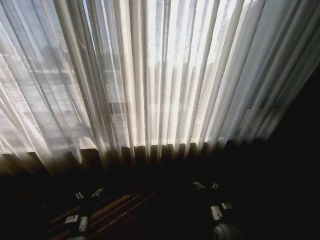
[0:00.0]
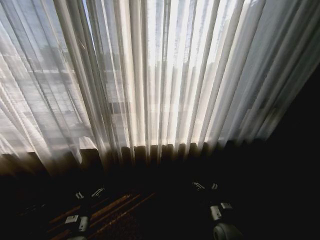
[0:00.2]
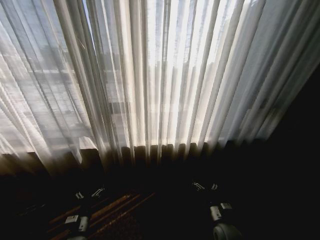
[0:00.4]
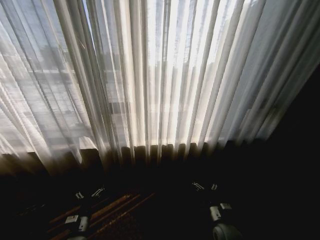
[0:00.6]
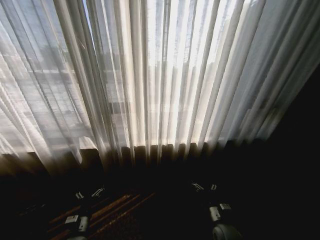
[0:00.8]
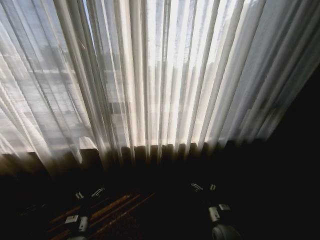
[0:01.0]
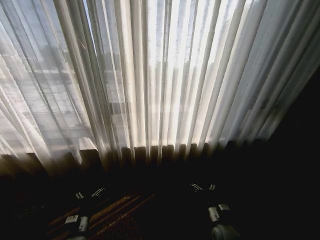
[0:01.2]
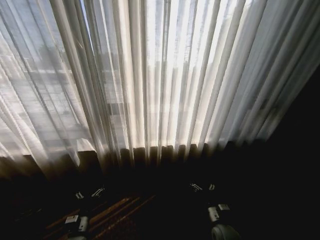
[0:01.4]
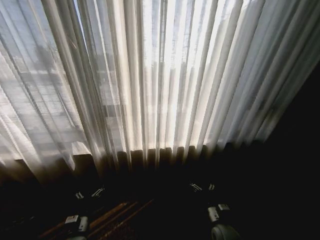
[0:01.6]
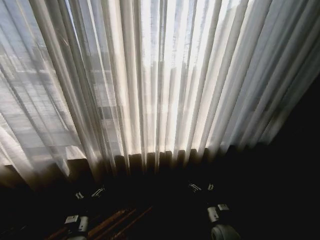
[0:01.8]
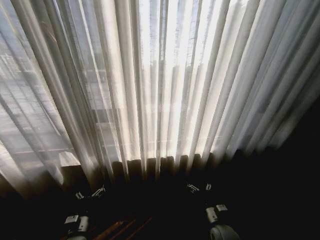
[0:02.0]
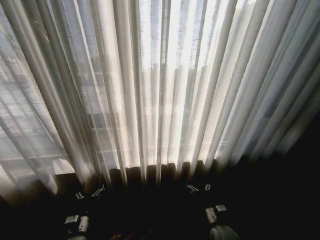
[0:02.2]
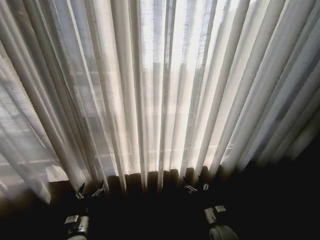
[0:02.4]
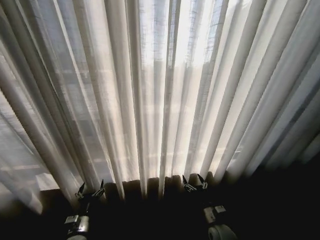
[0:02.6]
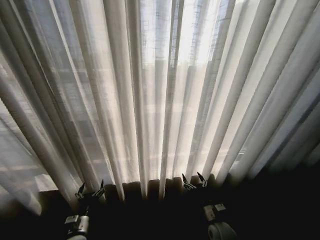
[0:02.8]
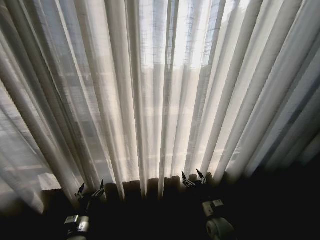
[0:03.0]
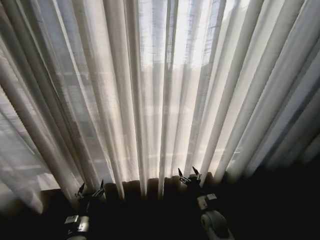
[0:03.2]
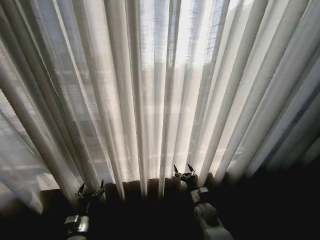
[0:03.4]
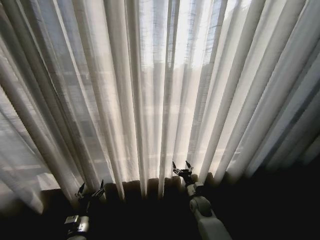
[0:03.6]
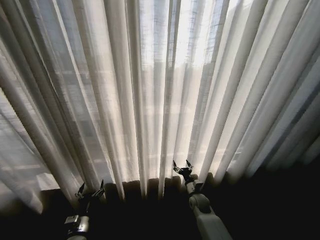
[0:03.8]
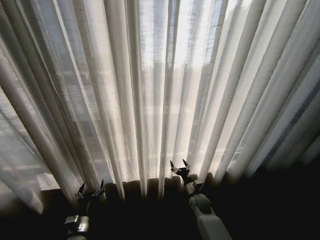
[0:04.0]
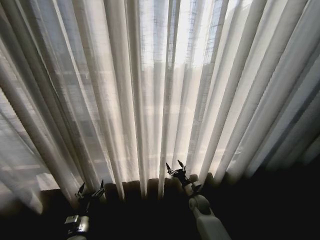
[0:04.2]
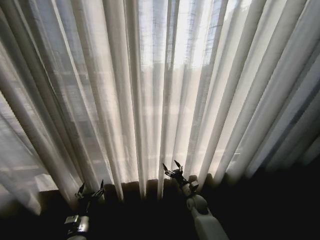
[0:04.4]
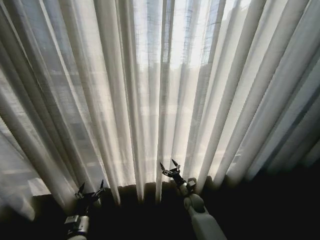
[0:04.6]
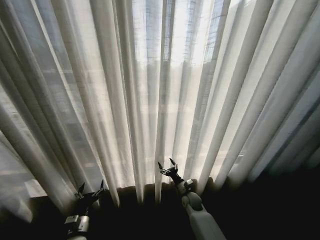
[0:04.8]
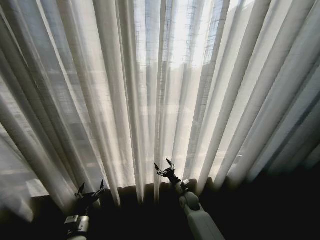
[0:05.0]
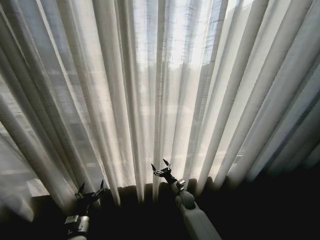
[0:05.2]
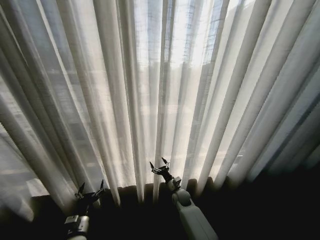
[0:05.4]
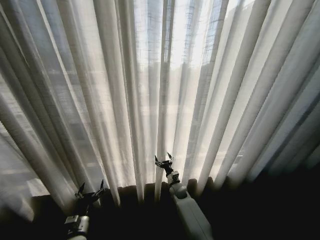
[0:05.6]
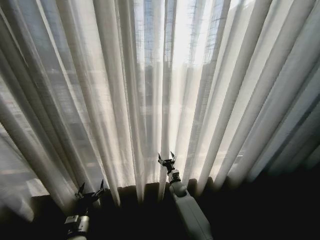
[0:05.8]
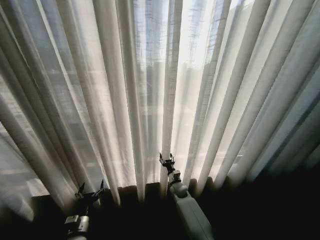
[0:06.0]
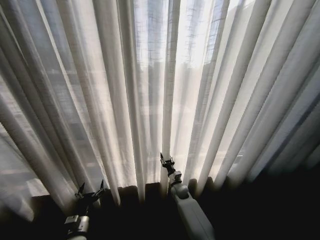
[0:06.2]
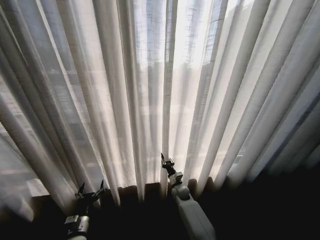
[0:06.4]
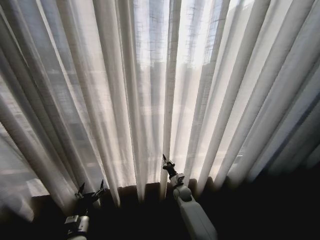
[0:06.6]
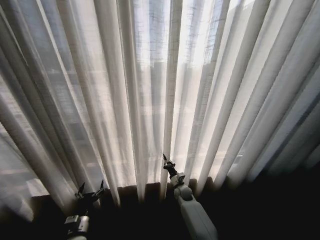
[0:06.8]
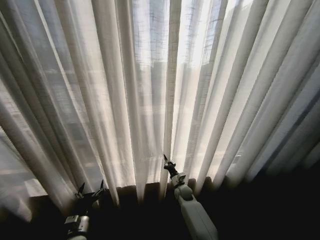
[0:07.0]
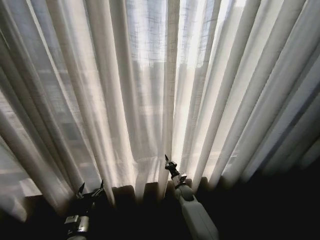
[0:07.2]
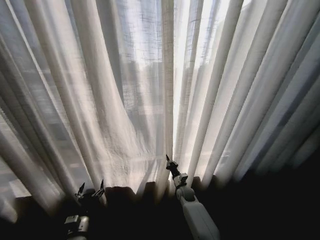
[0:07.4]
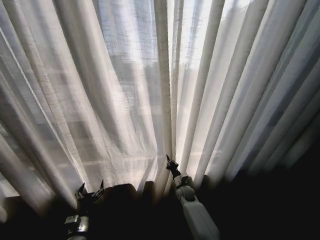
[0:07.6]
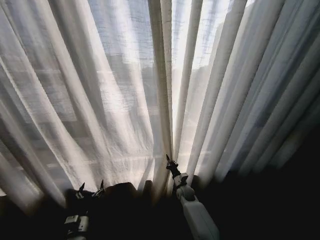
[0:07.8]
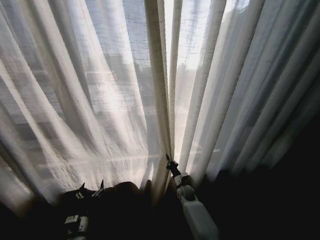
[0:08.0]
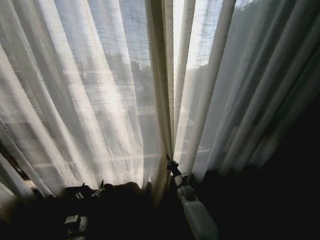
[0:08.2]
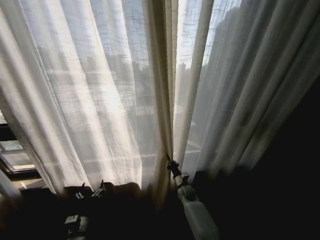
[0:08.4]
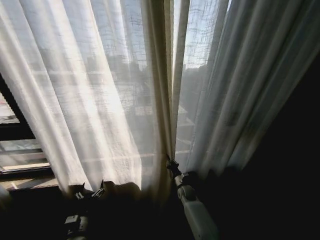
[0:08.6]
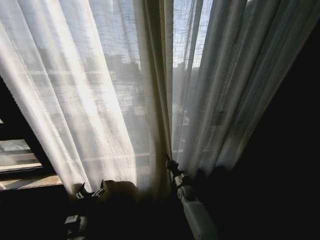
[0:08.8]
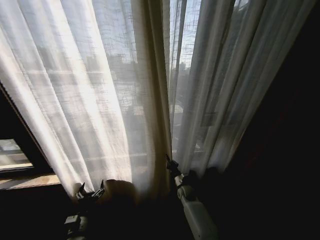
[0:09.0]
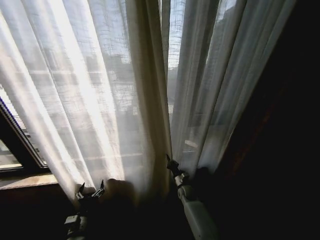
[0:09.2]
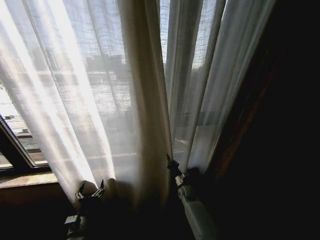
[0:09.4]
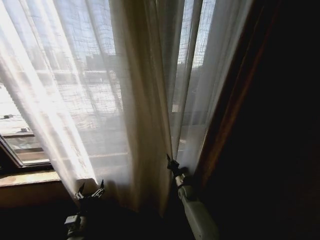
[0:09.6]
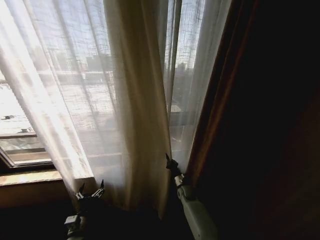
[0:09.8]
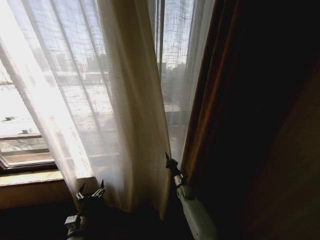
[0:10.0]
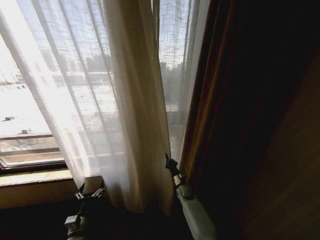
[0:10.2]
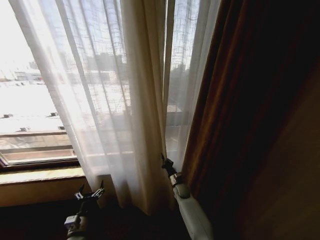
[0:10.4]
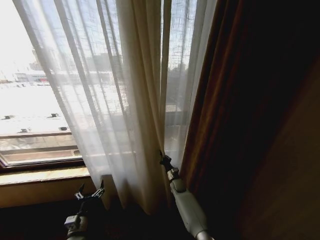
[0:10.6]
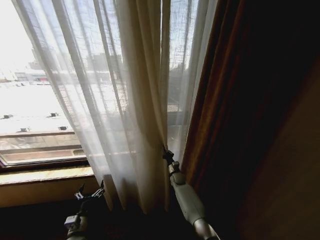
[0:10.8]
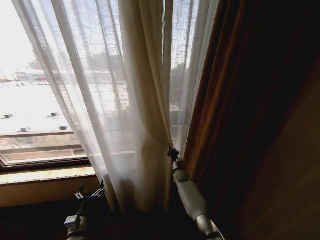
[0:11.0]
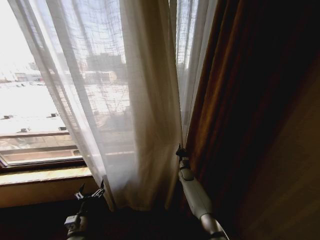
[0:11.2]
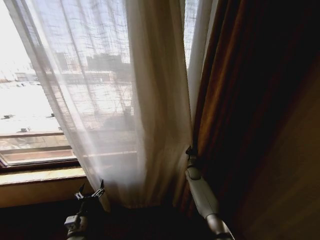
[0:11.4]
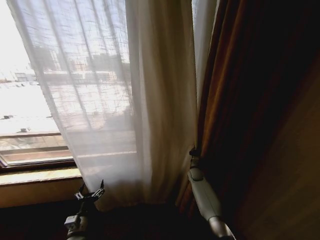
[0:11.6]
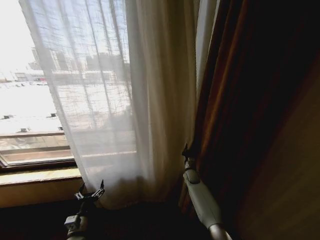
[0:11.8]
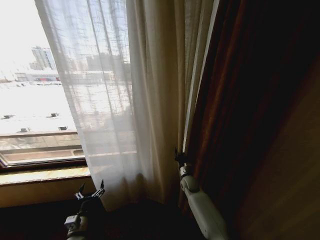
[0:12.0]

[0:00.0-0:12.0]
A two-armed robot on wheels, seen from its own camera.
Task of the whole recording: Open the curtains by pulling them apart, changing their state from closed to fully open.
0:03.0 to 0:04.4: The right gripper travels forward by some 10 cm.
0:04.4 to 0:06.0: The right gripper travels to the left and forward by some 10 cm.
0:06.0 to 0:07.6: The right gripper closes its fingers.
0:10.4 to 0:12.0: The right gripper heads upward, covering some 5 cm, and reaches some 10 cm to the right, then returns.

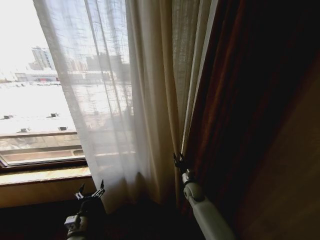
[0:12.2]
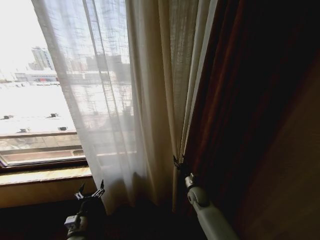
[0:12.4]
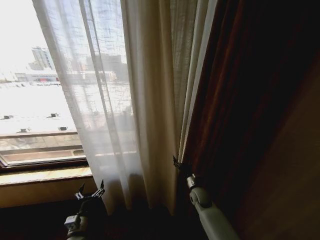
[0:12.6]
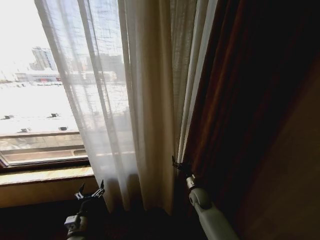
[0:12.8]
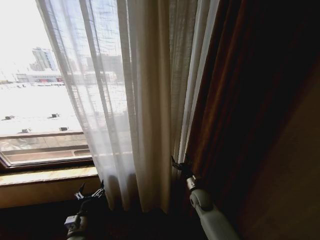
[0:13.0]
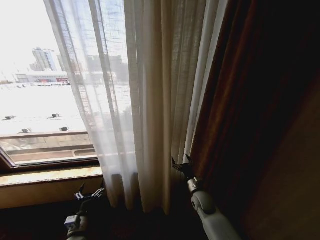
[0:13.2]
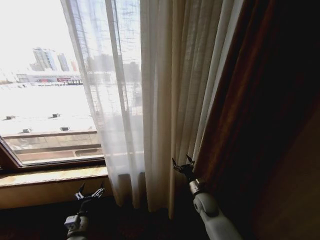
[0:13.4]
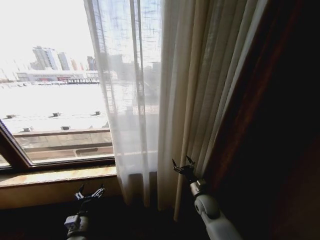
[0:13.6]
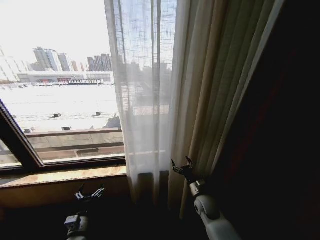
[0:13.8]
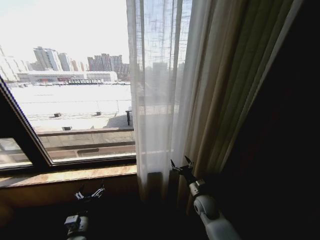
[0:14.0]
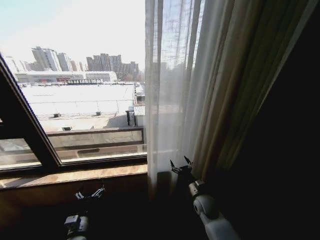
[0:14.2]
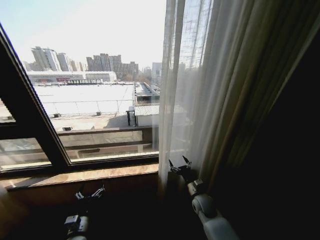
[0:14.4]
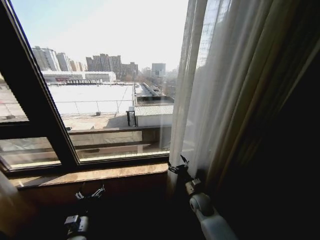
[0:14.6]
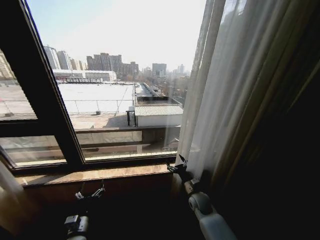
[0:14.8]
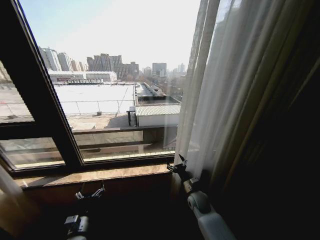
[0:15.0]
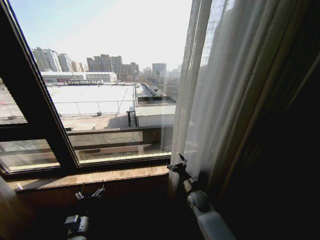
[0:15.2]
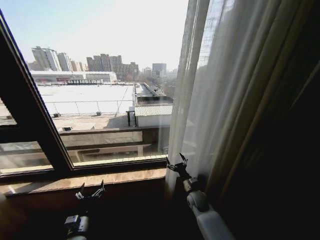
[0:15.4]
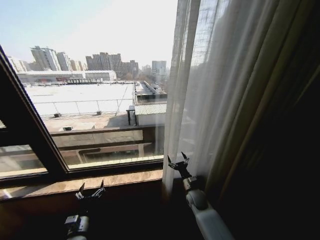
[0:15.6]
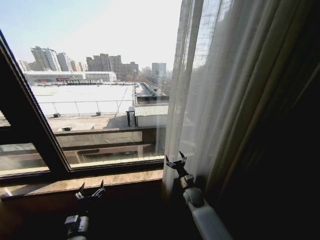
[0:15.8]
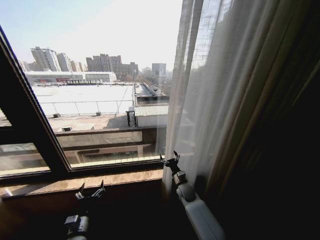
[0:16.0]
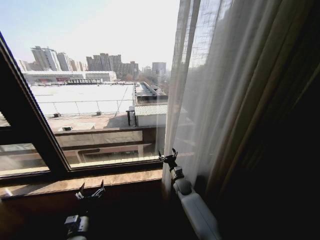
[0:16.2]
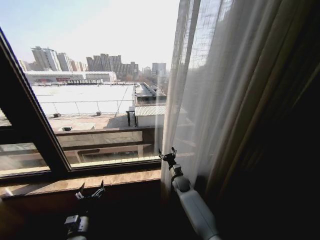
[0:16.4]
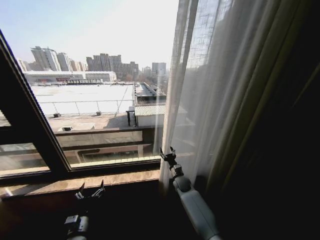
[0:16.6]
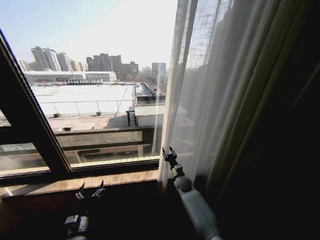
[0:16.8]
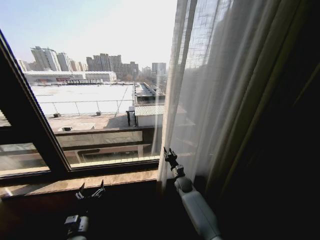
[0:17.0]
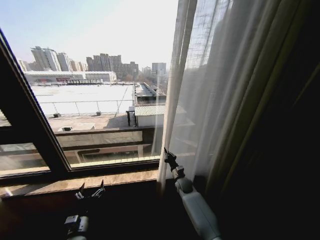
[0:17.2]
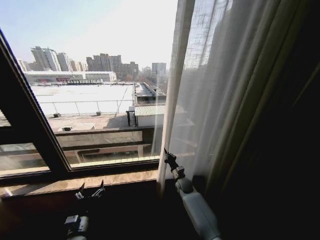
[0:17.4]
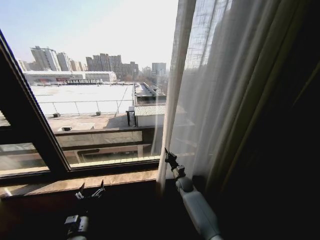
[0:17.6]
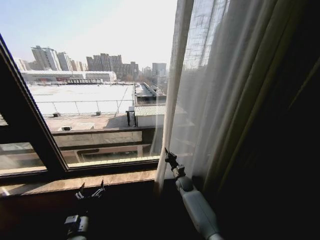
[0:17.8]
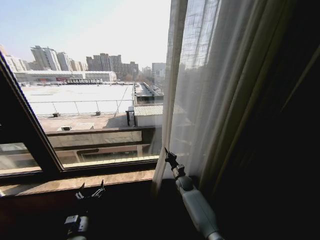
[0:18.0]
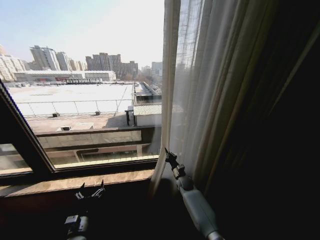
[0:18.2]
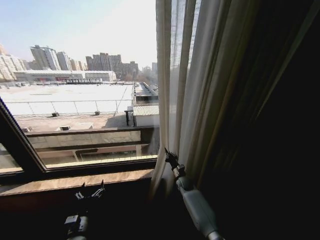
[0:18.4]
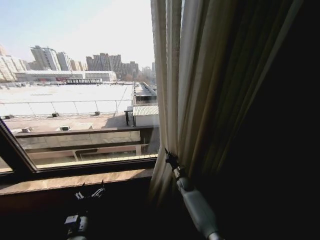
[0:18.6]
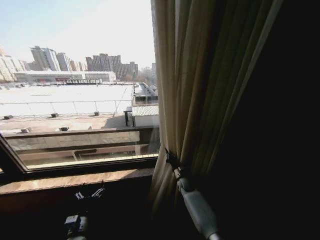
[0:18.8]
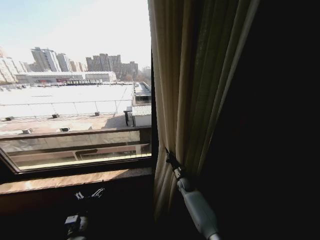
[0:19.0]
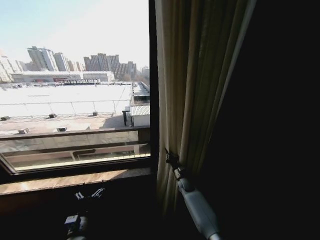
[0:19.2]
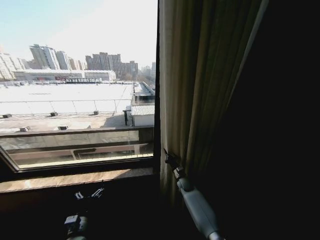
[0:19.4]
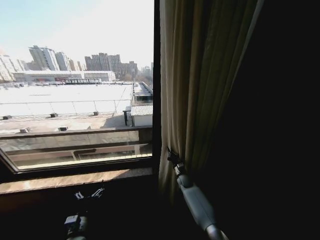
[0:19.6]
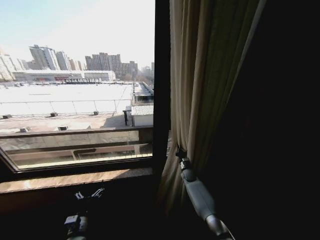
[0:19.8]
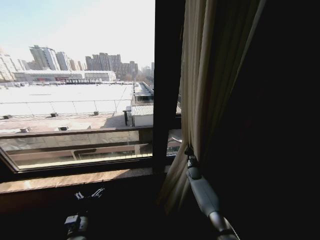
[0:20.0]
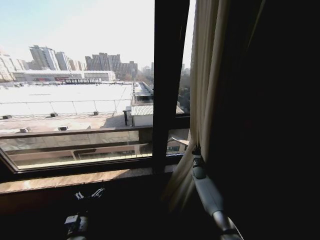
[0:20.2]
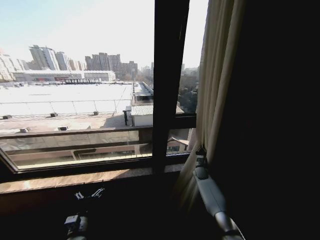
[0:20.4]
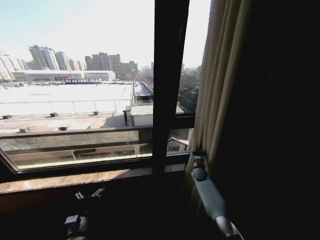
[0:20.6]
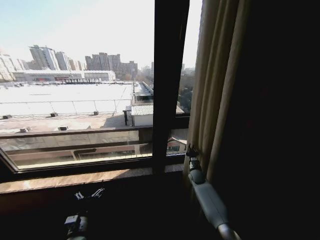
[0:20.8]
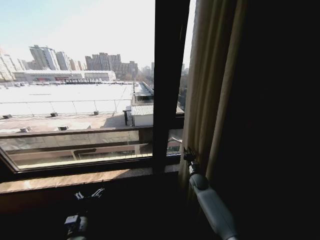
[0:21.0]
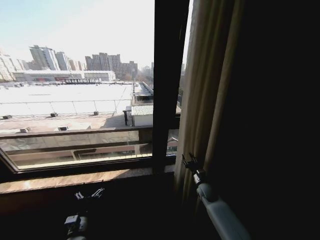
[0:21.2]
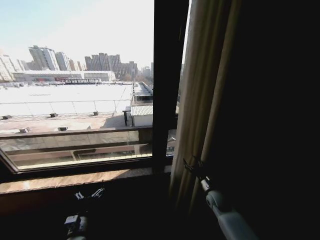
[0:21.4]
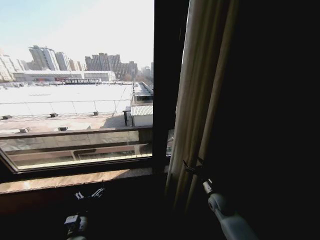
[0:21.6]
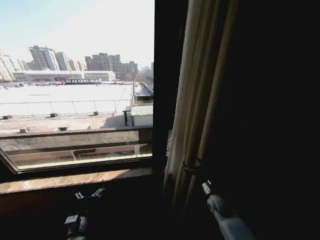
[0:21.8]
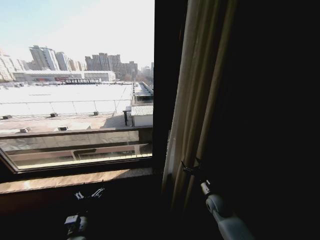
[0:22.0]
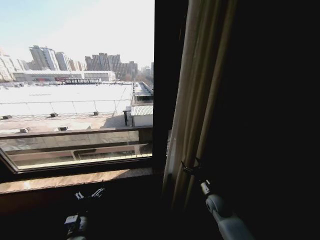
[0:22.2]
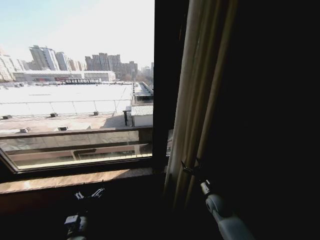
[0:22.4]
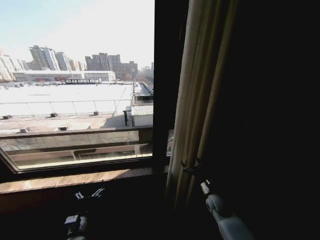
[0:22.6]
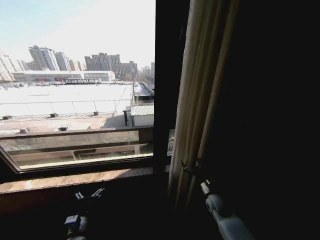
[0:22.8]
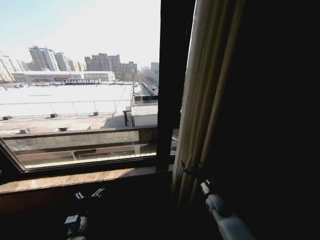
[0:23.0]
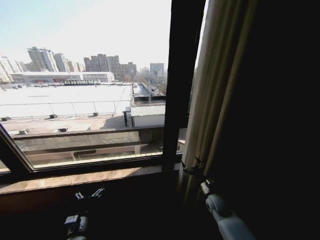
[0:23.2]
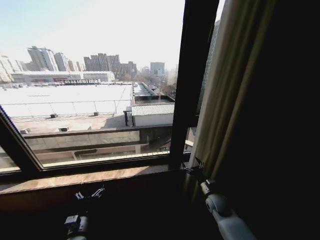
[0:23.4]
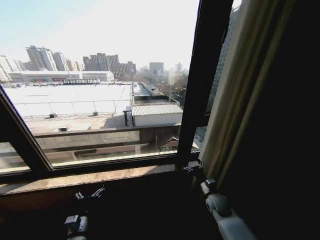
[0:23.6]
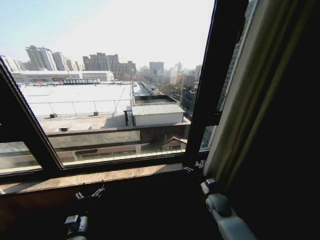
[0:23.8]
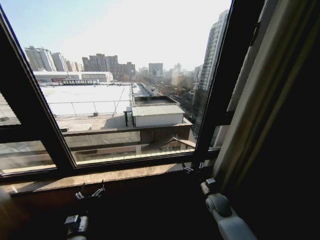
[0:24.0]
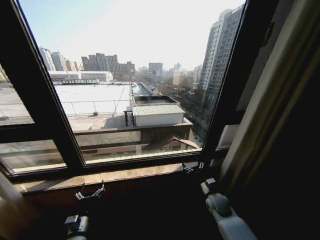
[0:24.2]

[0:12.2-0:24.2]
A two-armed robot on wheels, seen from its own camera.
Task of the whole recording: Open the curtains by pulling them apart, changing their state from closed to fully open.
0:12.2 to 0:13.8: The right gripper goes approximately 5 cm backward, and opens its fingers.
0:15.2 to 0:16.6: The right gripper is displaced forward and to the left by some 10 cm.
0:16.6 to 0:18.2: The right gripper closes its fingers.
0:18.2 to 0:19.8: The right gripper ends up roughly 5 cm from where it was.
0:19.8 to 0:21.2: The right gripper travels backward and to the right by about 15 cm, and opens up.
0:21.2 to 0:22.6: The right gripper travels backward by about 5 cm, and opens.
